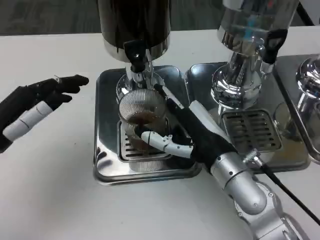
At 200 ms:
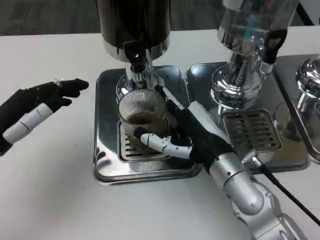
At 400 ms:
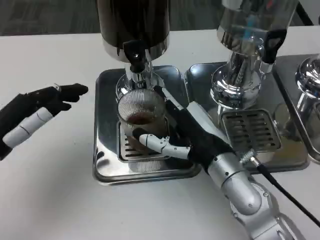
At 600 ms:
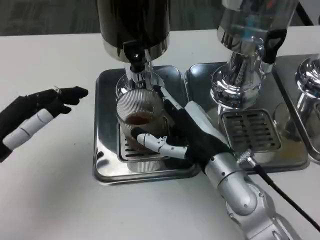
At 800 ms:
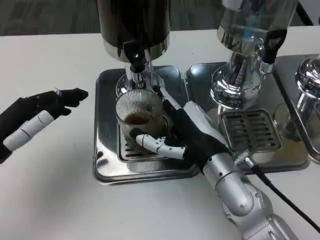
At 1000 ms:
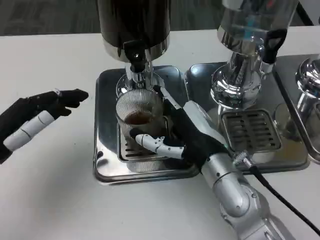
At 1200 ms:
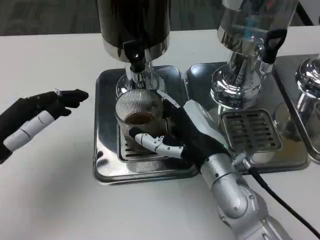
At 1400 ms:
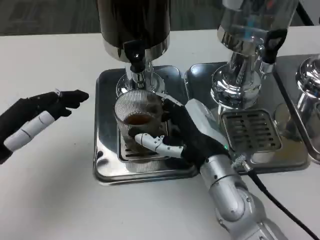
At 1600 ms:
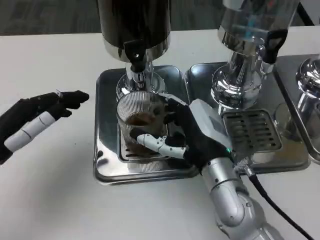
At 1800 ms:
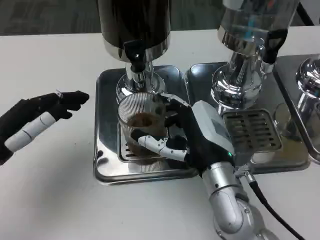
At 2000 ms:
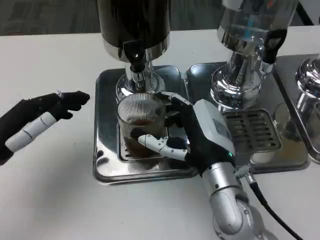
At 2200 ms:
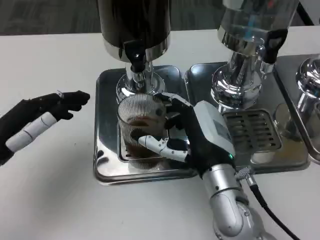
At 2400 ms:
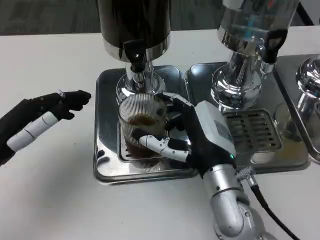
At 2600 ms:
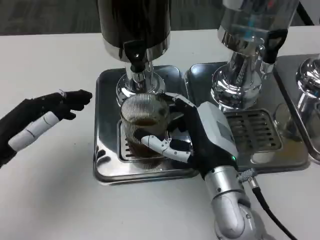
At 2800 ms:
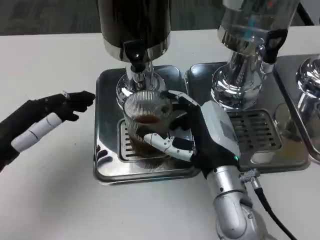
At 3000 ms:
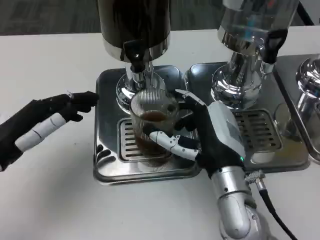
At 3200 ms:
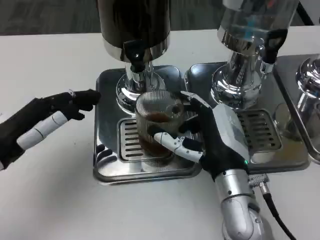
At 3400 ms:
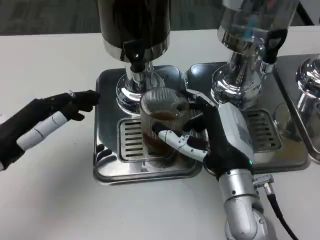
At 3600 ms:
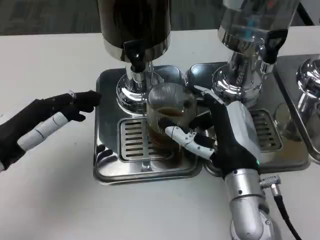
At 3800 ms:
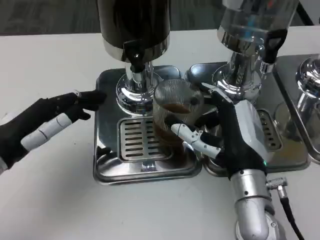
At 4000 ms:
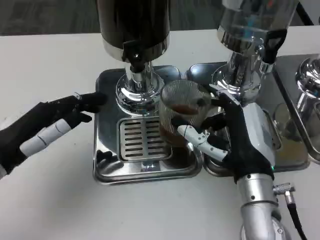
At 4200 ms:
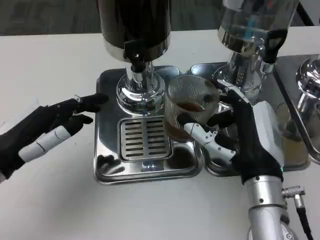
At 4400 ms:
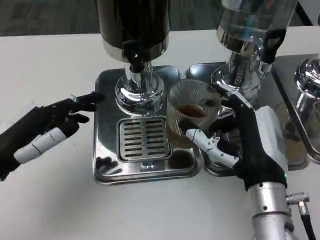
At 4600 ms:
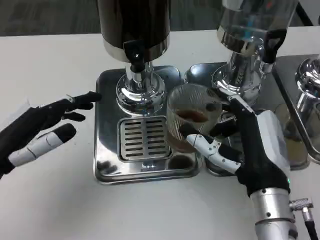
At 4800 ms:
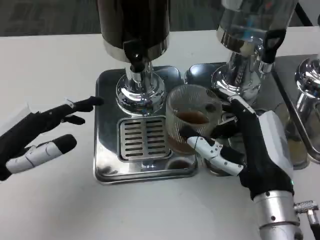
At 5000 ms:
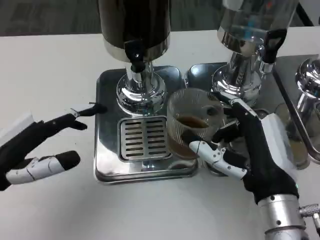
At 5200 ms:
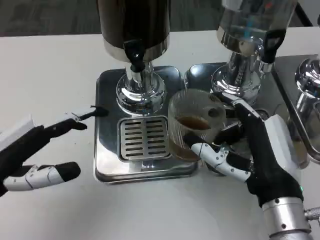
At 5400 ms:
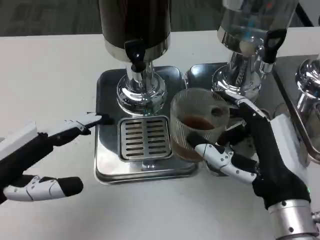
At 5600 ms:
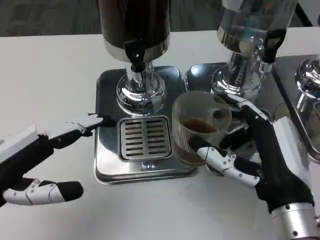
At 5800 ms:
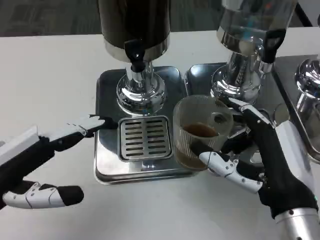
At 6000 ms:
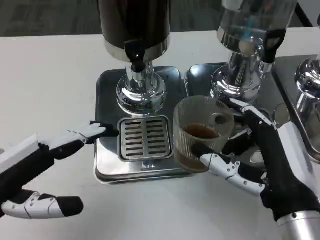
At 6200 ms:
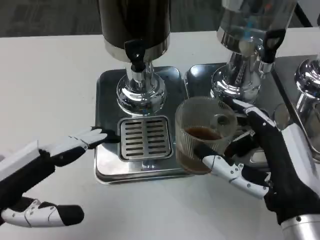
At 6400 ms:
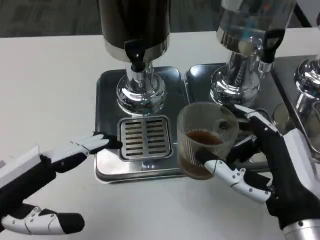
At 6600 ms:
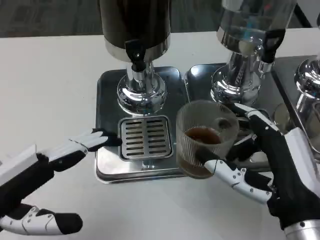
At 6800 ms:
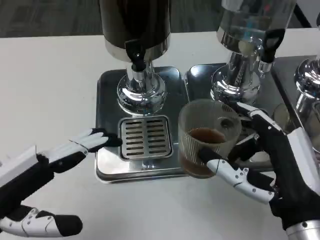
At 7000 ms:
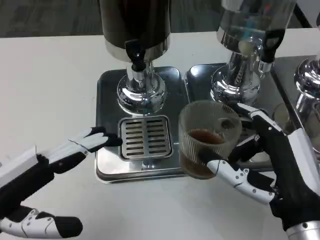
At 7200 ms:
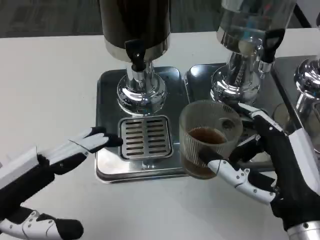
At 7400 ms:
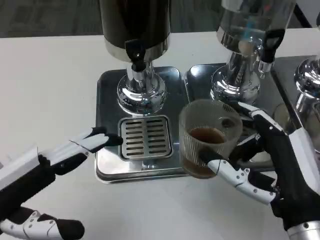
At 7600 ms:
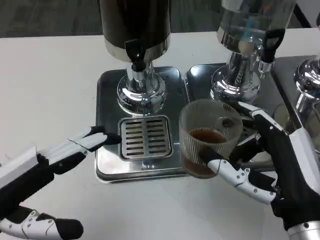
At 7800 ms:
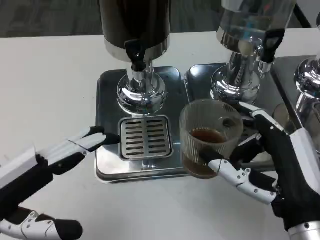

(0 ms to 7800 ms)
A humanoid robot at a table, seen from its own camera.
Task of the whole recording: Grasp the cup under the faucet to collect the drink, then remove the cup.
0 ms - 1600 ms: There are only small adjustments of the hands.
1600 ms - 3200 ms: The hands move only a little.
3200 ms - 4600 ms: The right hand ends up roughly 5 cm from where it was.
4600 ms - 6200 ms: The left hand travels backward by about 5 cm; the right hand ends up some 5 cm from where it was.
6200 ms - 7800 ms: Both hands stay put.

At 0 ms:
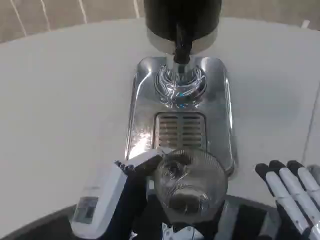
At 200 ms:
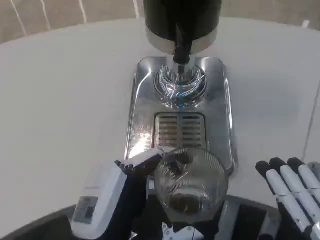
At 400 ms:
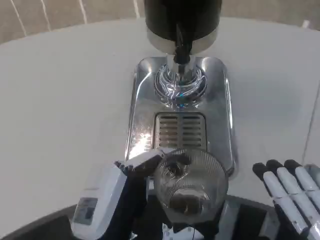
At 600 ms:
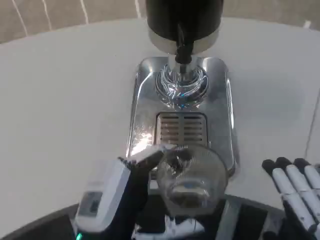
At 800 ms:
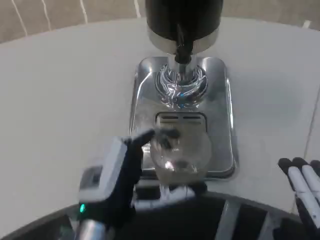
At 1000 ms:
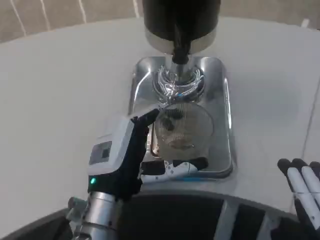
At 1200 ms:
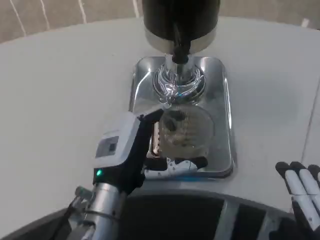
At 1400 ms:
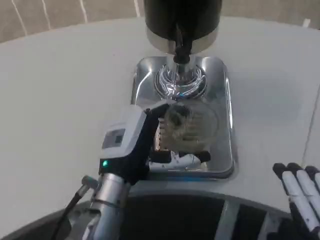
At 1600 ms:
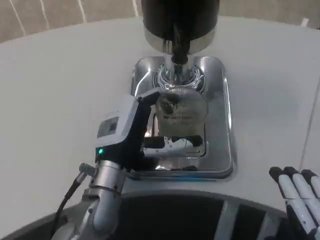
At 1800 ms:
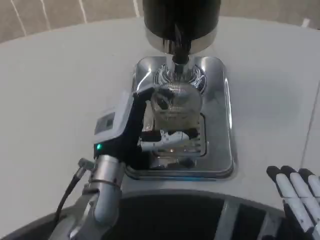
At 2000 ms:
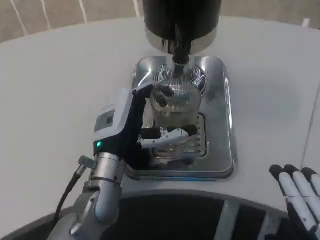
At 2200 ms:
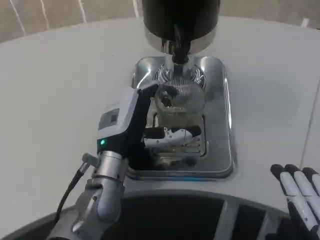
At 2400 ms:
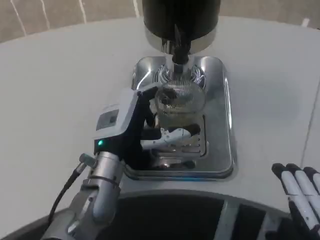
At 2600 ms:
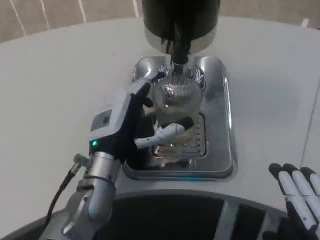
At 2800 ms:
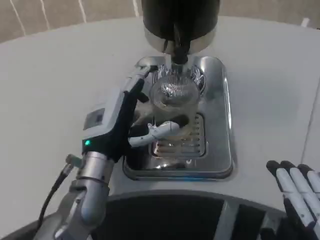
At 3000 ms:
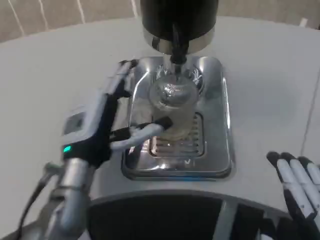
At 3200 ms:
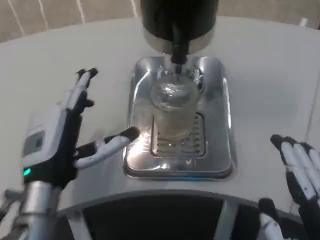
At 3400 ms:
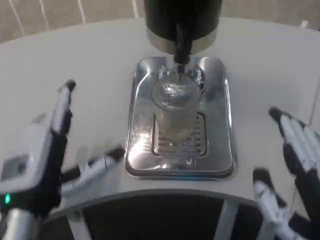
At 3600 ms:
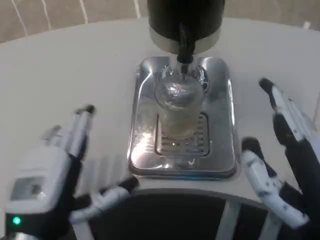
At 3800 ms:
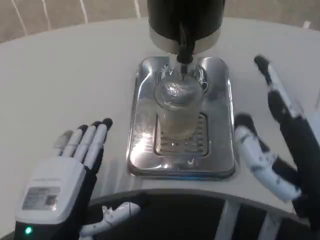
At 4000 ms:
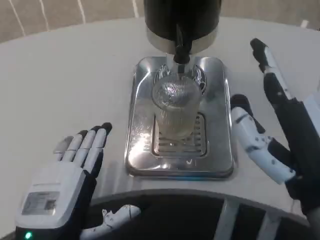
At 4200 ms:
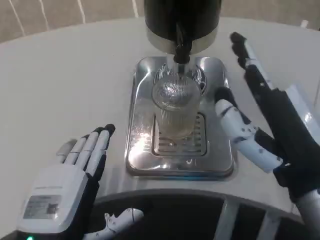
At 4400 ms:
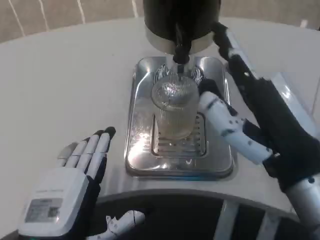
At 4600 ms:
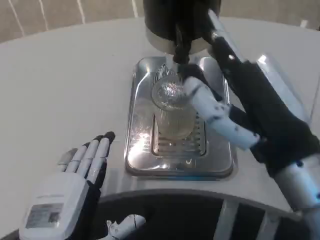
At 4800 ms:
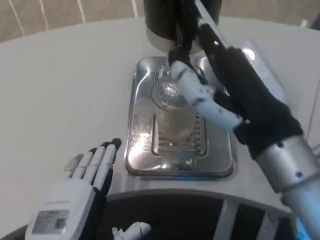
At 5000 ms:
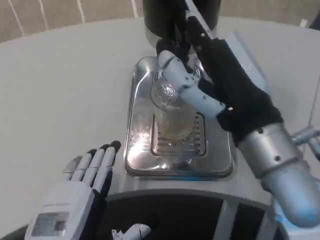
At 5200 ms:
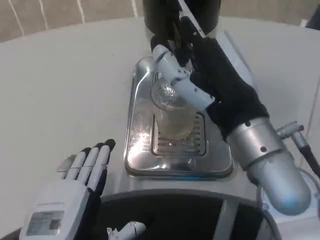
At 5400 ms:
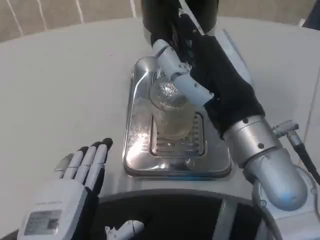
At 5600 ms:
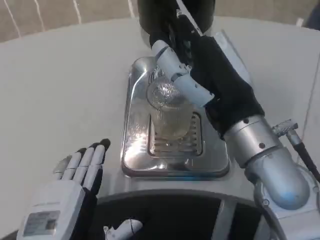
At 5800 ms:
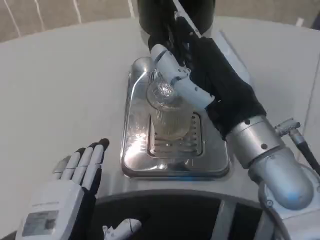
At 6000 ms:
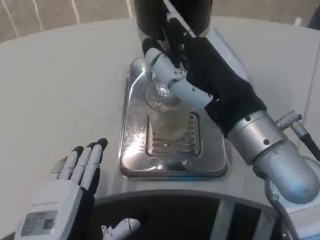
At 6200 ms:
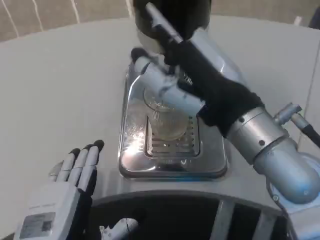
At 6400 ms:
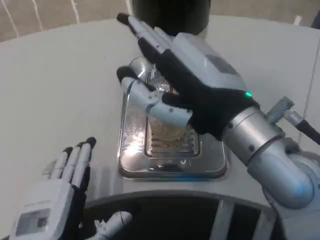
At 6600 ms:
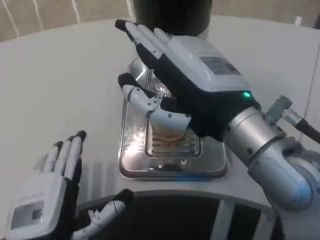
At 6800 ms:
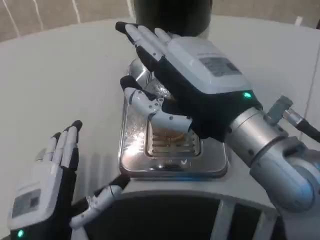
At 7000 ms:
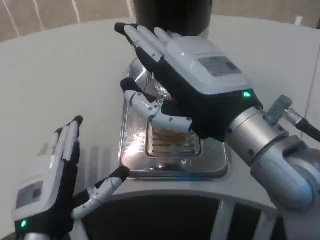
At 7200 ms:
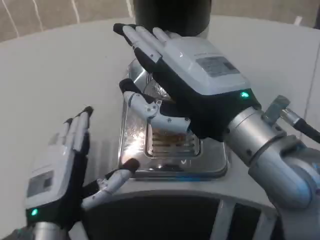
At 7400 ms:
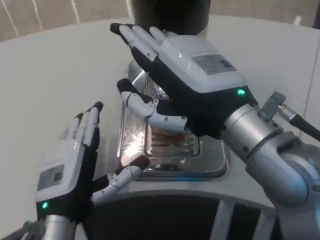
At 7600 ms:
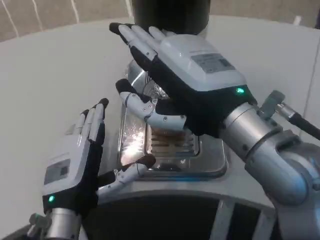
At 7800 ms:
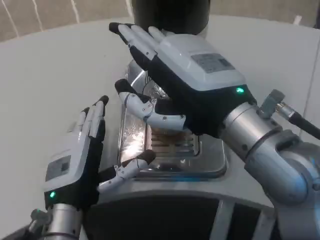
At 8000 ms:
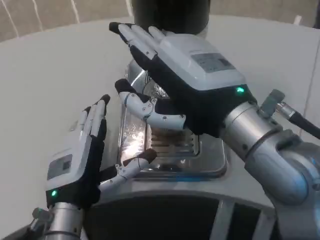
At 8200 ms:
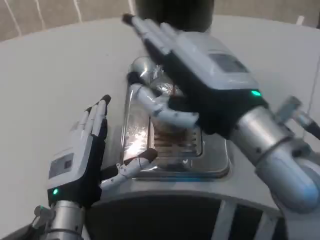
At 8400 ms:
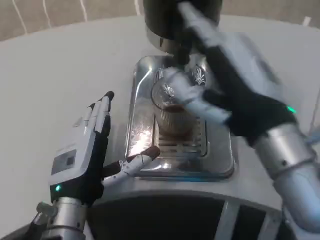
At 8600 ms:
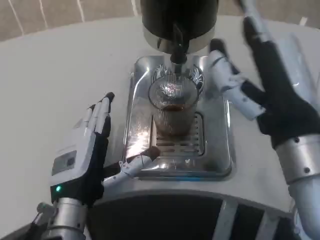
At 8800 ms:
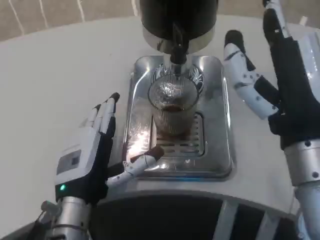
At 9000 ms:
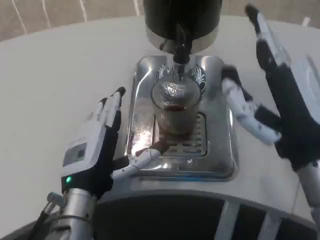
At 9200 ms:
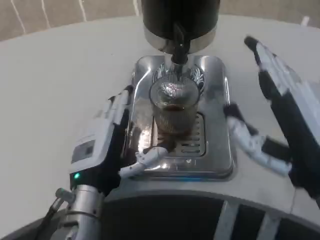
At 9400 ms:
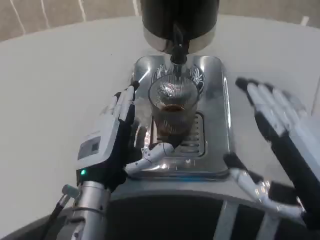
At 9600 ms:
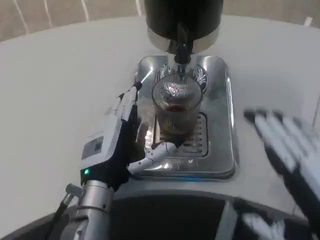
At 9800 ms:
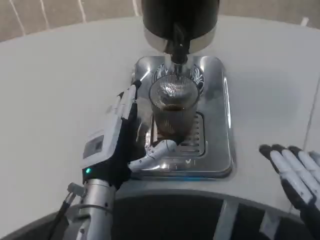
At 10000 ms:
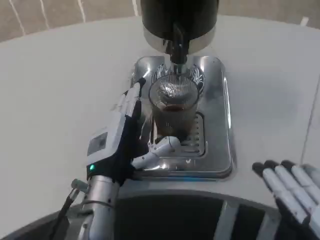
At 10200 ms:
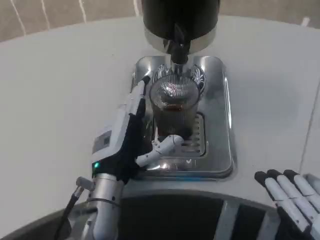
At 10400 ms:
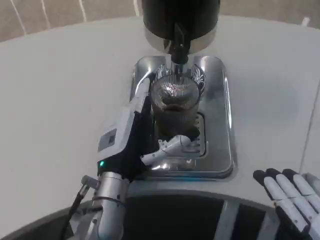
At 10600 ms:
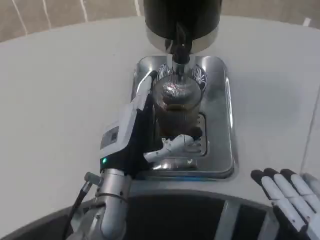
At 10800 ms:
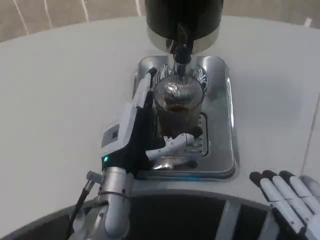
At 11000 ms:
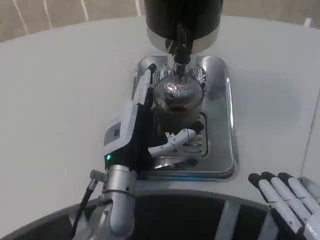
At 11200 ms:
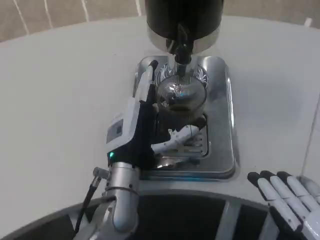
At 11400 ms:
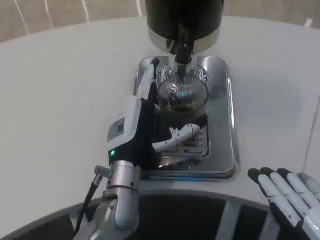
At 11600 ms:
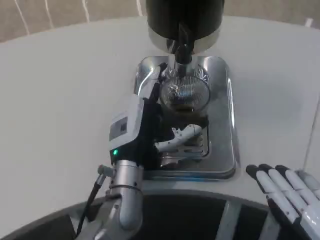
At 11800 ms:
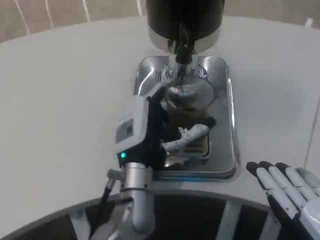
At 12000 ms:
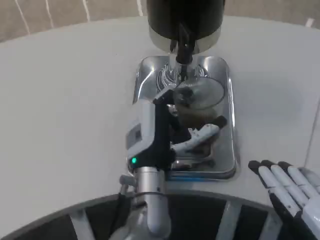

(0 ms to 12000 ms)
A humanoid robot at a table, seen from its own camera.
Task of the whole recording: Grasp the cup under the faucet to collect the drink, then remove the cup.
0 ms - 1600 ms: The left hand heads forward, covering roughly 15 cm.
3000 ms - 4400 ms: The left hand moves backward, approximately 15 cm; the right hand heads forward and upward, covering roughly 15 cm.
4400 ms - 6000 ms: The right hand shifts approximately 5 cm forward.
6000 ms - 7600 ms: The left hand is displaced forward by approximately 10 cm.
7600 ms - 9000 ms: The right hand is displaced downward and to the right by roughly 10 cm.
9000 ms - 10400 ms: The left hand changes place by about 5 cm, while the right hand shifts about 15 cm backward, downward and to the right.
10400 ms - 12000 ms: The left hand is displaced to the right by some 5 cm.

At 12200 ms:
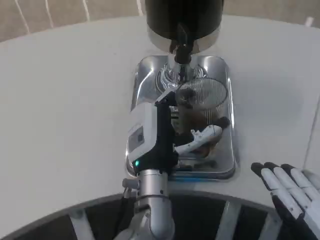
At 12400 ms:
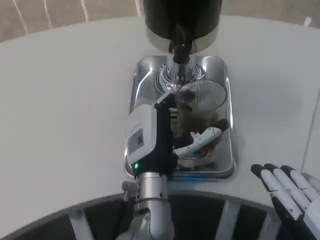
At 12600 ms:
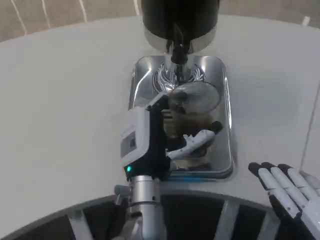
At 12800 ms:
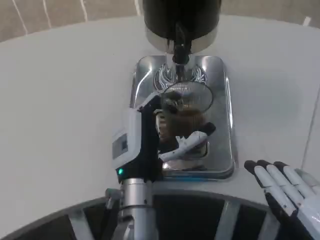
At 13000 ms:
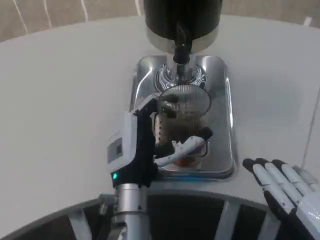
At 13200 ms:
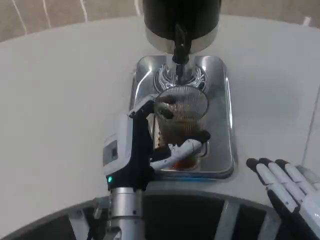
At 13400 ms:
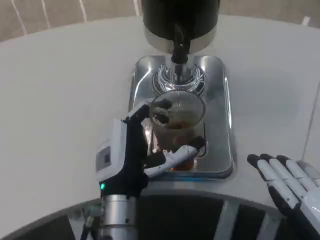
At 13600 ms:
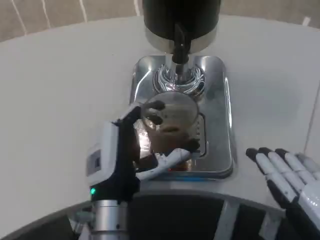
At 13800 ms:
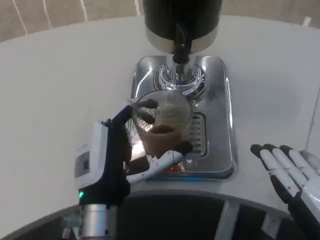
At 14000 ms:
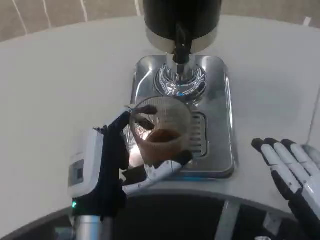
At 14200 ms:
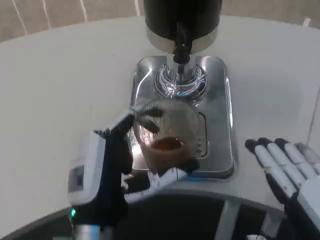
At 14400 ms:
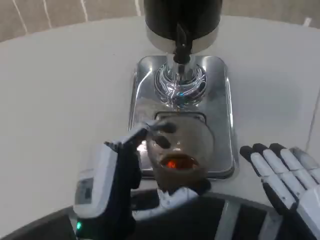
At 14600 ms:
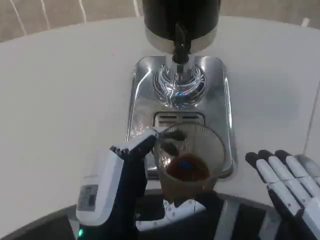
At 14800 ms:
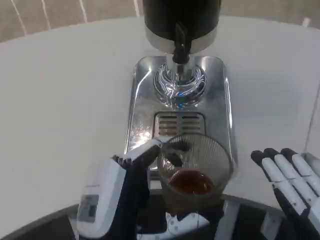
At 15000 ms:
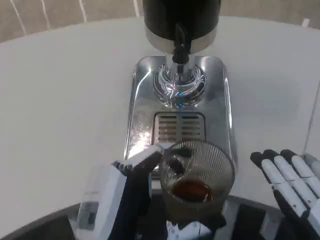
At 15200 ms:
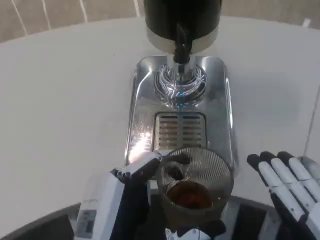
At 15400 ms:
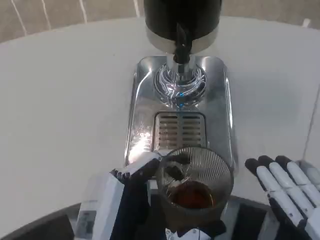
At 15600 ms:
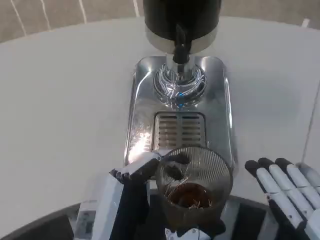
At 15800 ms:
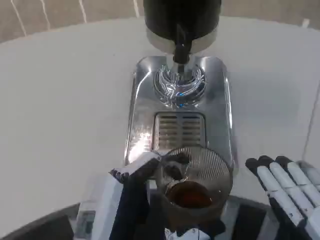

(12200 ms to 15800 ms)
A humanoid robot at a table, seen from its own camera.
Task of the whole recording: Grasp the cup under the faucet to collect the drink, then remove the cup.
12200 ms - 14000 ms: The left hand travels backward and to the left by some 10 cm.
14000 ms - 15800 ms: The left hand shifts some 10 cm backward.
